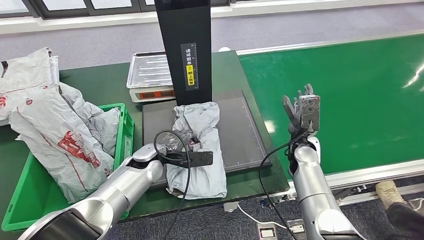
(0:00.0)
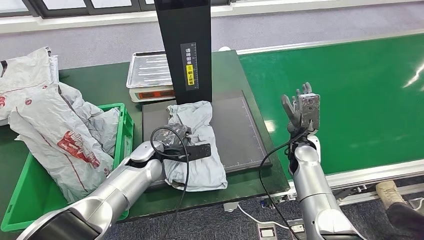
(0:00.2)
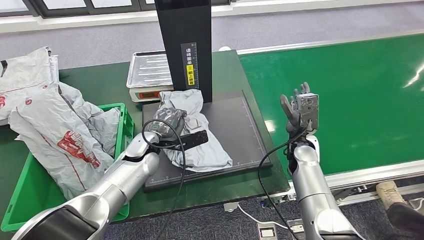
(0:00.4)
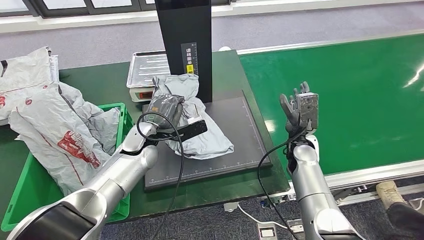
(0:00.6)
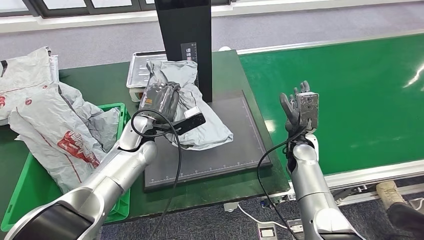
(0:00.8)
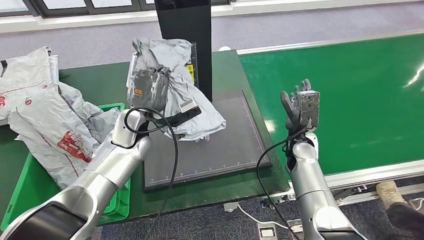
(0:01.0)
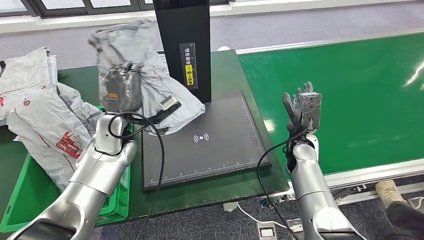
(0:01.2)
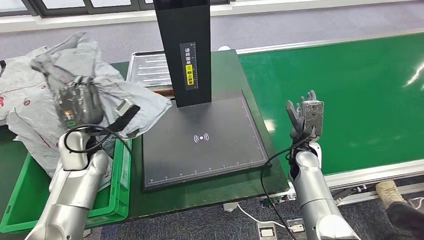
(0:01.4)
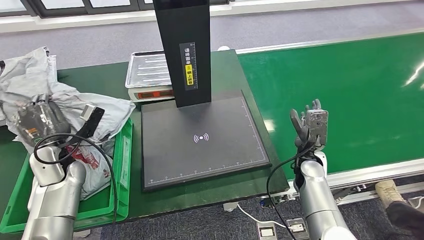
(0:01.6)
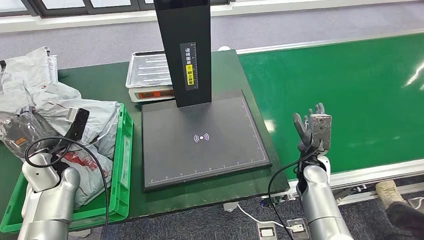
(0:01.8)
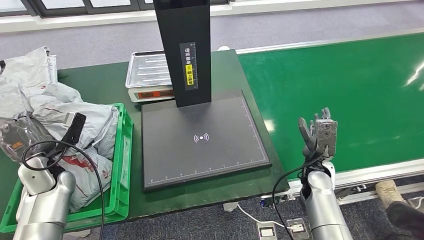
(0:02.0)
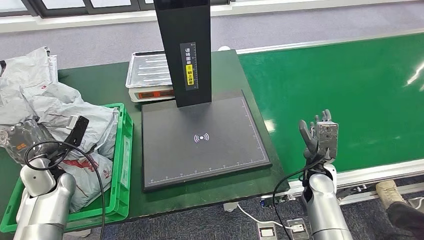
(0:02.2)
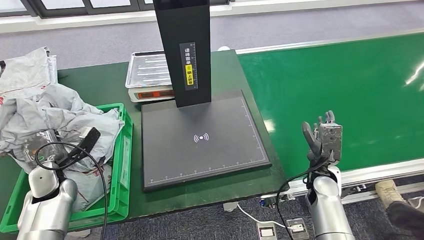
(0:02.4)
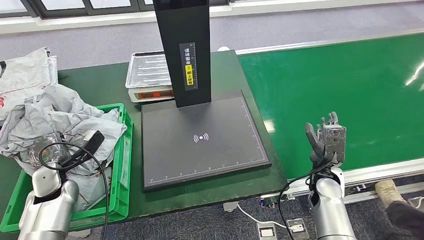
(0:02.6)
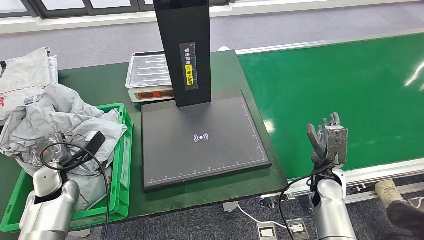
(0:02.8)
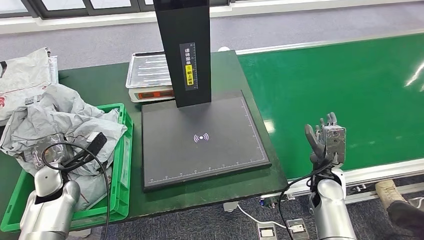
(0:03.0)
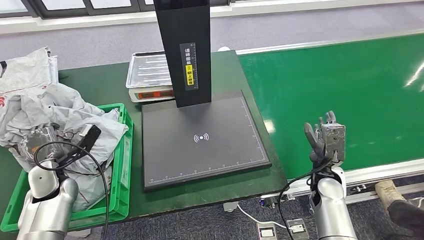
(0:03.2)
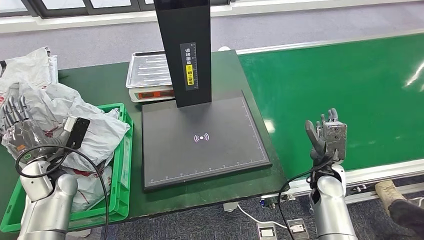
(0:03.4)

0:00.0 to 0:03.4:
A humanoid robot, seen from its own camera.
Step, 0:00.0 to 0:01.2: Pick up the parcel from the inbound machine.
Step, 0:01.6 to 0:03.4: Place the parcel into the delivery box.
0:01.6 to 0:03.4: The right hand moves about 5 cm.

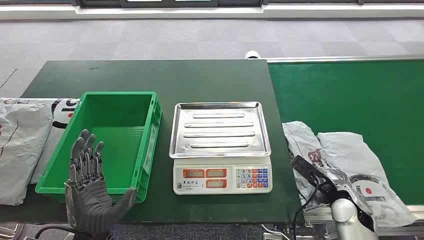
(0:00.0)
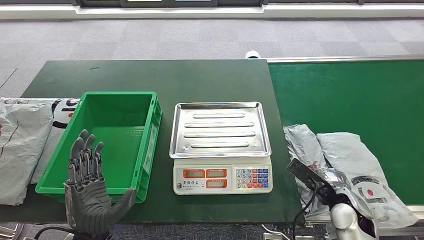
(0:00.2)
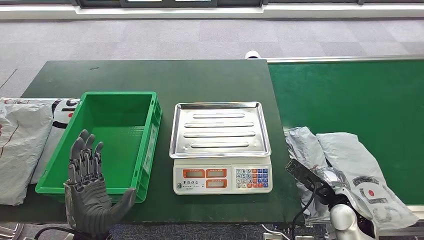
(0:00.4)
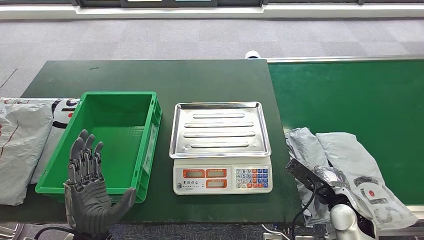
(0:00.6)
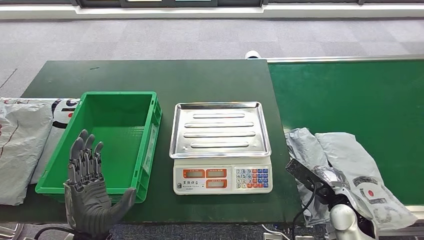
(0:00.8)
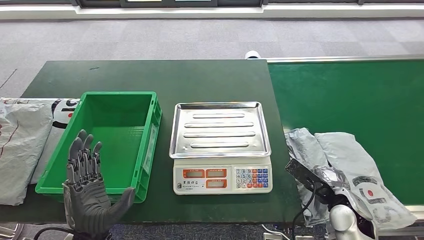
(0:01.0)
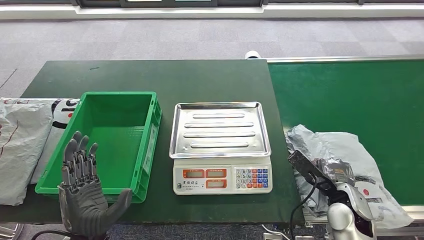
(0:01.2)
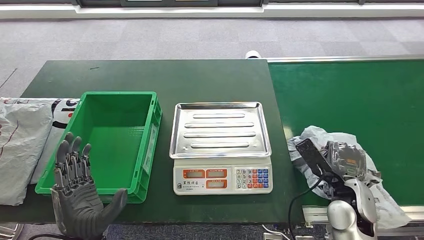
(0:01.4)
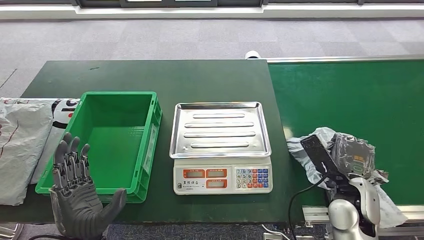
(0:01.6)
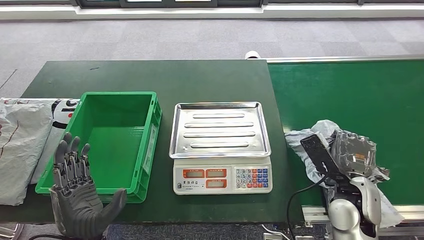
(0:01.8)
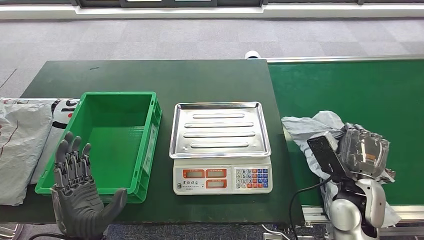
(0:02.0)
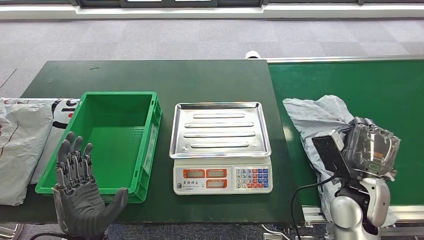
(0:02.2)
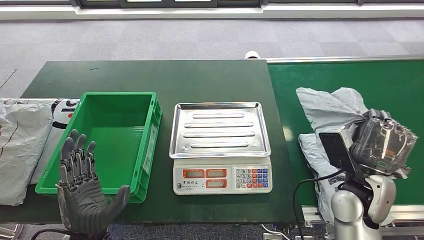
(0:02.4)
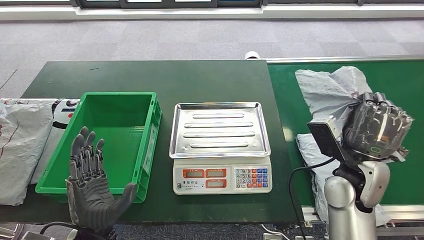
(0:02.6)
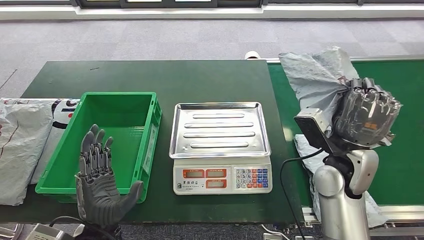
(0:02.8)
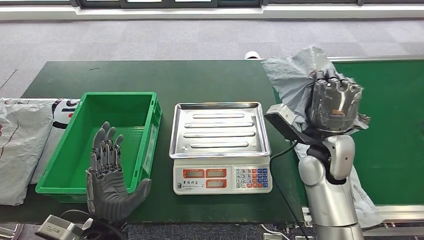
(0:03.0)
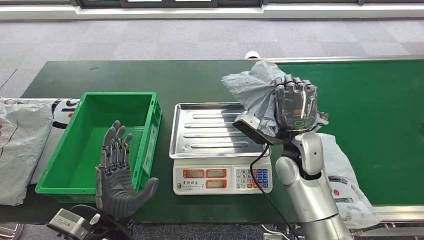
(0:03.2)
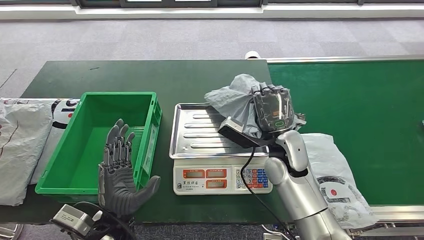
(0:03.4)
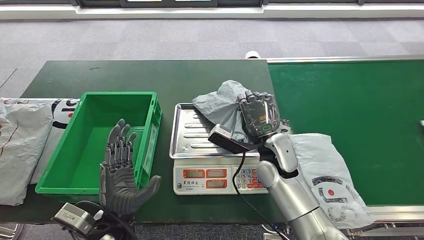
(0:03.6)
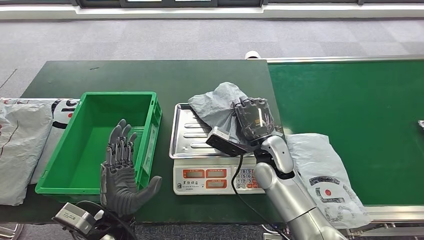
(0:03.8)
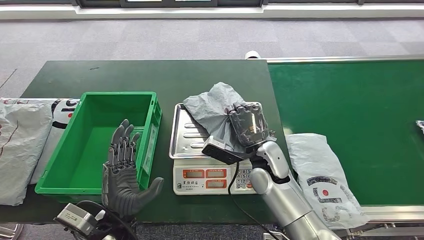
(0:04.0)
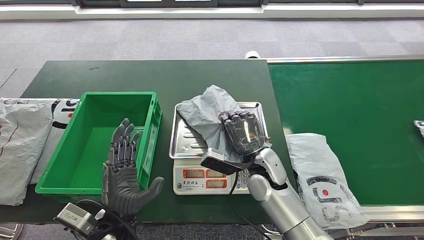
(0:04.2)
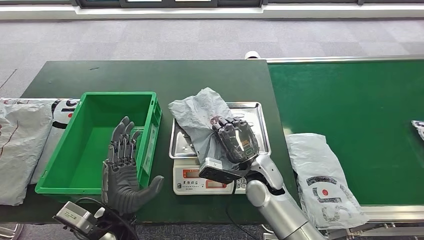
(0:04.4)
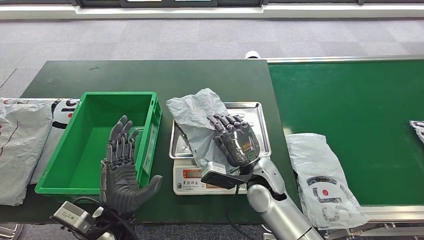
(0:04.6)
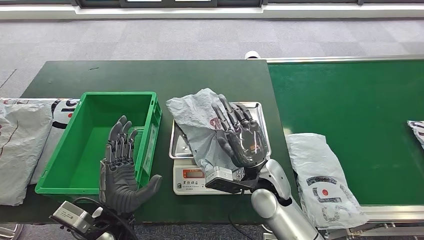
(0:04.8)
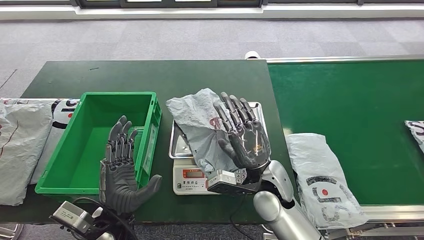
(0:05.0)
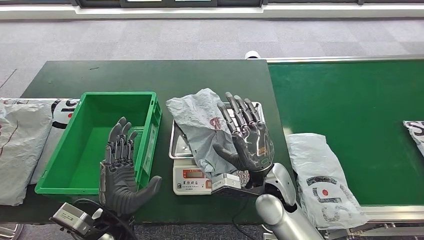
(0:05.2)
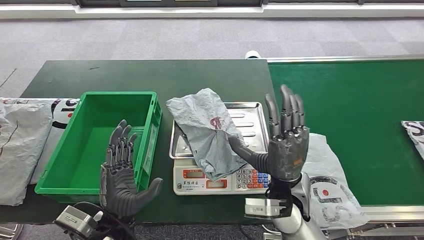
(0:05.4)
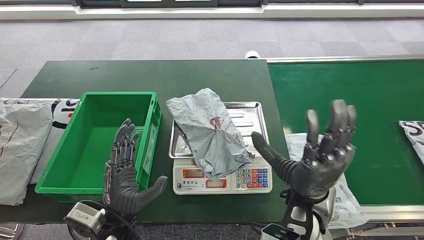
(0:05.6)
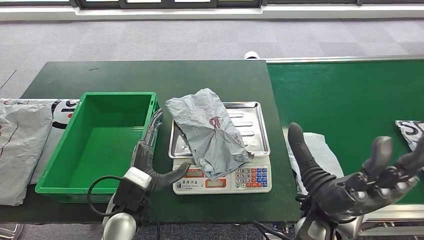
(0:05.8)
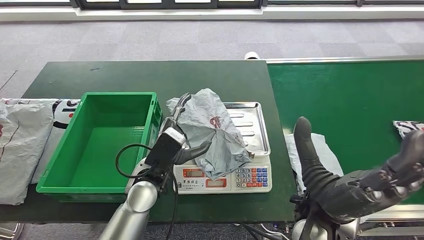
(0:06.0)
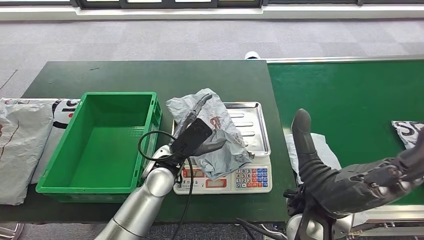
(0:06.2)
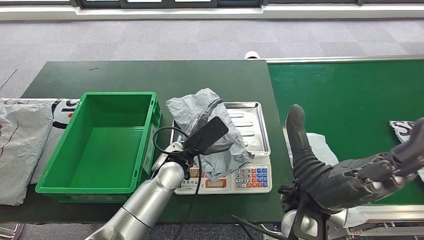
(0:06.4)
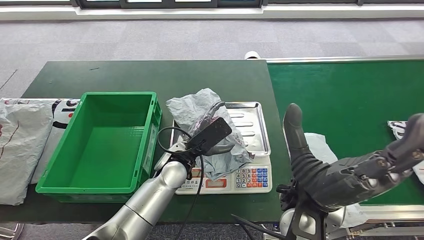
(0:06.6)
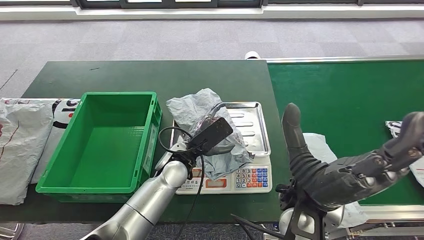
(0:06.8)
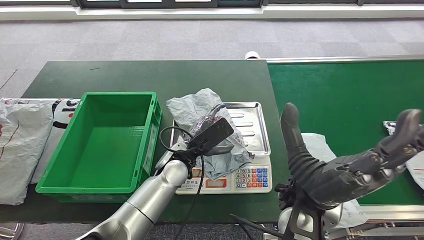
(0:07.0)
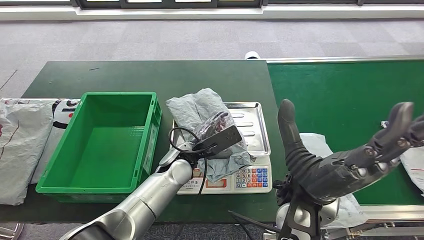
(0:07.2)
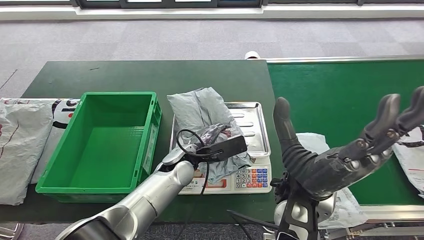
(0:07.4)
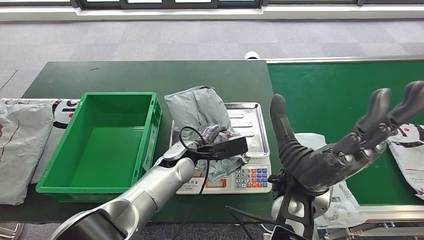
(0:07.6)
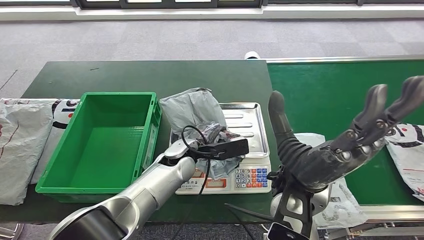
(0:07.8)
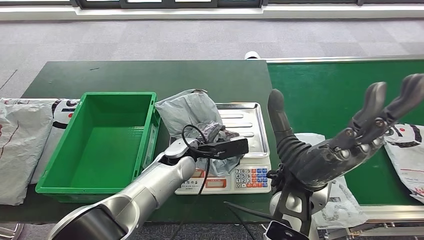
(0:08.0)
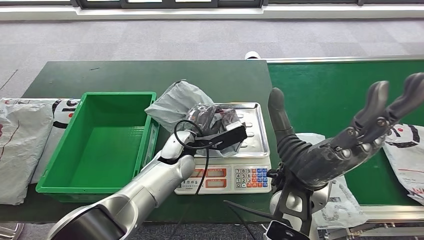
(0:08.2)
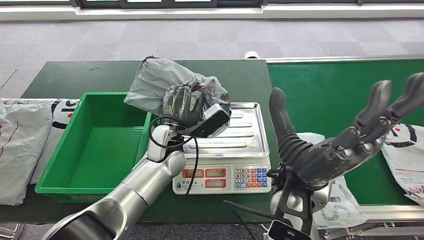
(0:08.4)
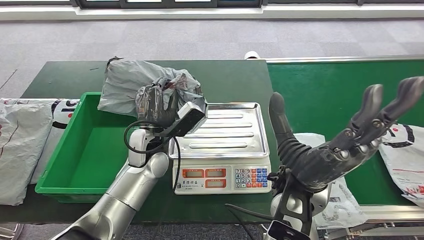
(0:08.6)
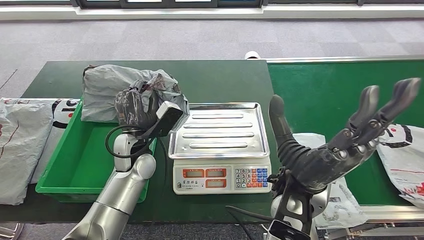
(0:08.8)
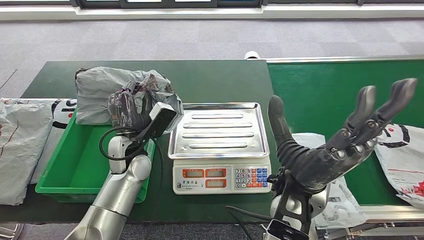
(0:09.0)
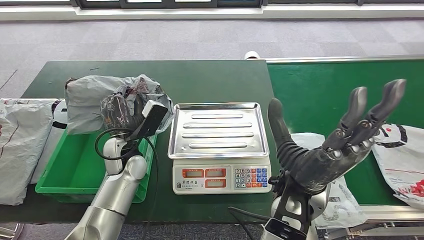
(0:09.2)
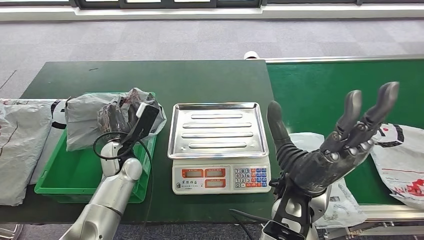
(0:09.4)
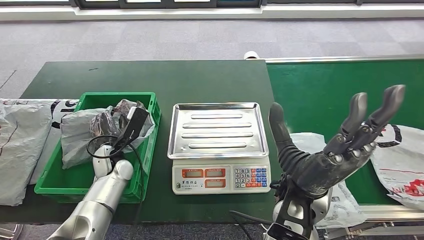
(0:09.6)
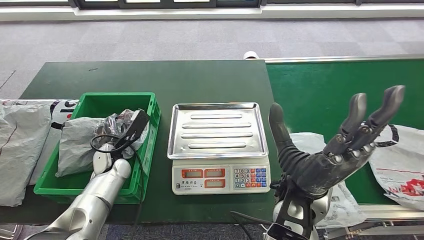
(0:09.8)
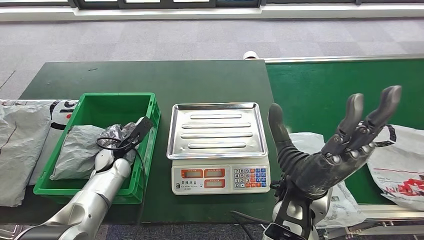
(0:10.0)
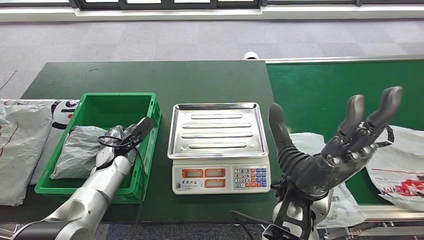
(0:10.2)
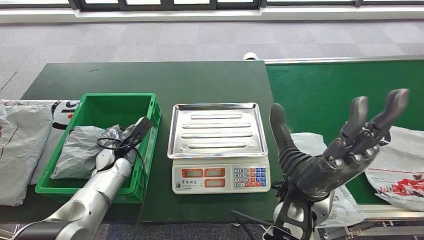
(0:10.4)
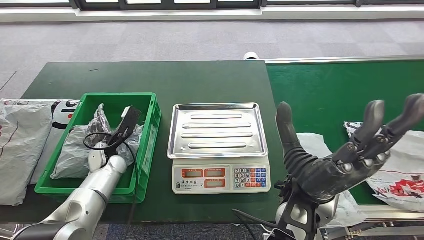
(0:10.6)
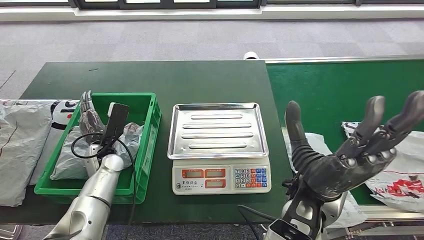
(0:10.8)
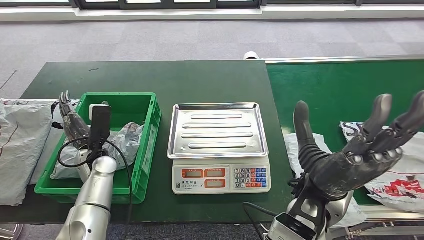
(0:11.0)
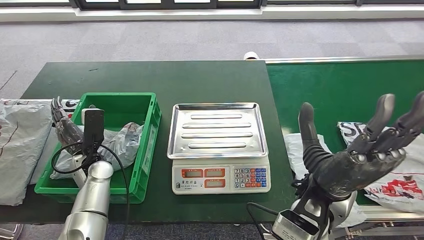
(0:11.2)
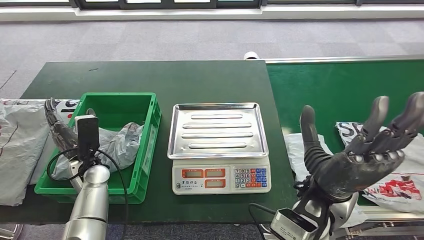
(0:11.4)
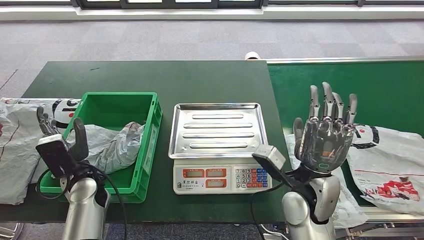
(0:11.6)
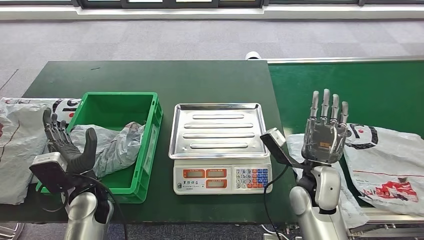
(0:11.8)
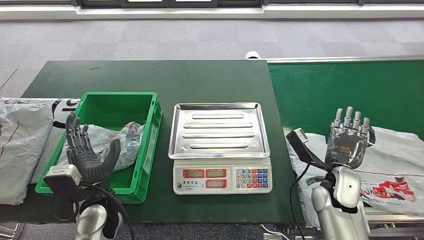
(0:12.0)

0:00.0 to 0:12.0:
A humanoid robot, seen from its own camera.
Step, 0:00.0 to 0:02.0: Take the parcel off the conveyor belt.
Step, 0:02.4 to 0:05.2: Place the parcel onto the inbound machine.
Step, 0:05.4 to 0:08.8: Pick up the parcel from the inbound machine.
0:01.6 to 0:03.0: The right hand heads forward, upward and to the left, covering roughly 15 cm.

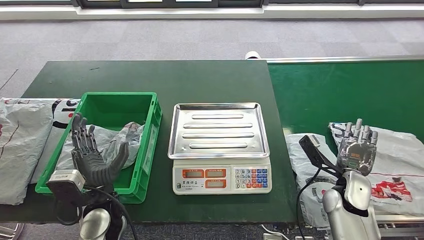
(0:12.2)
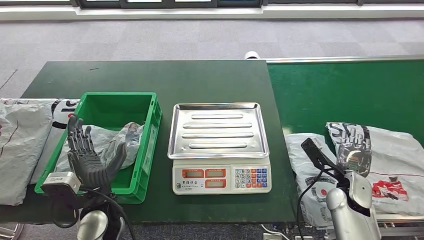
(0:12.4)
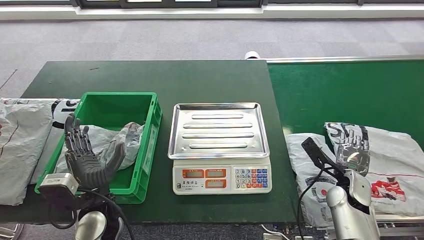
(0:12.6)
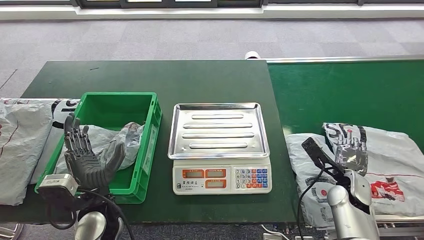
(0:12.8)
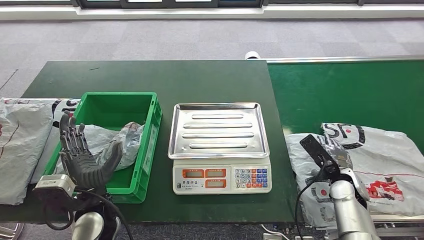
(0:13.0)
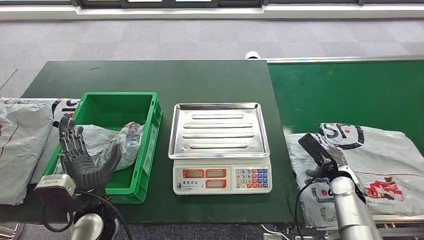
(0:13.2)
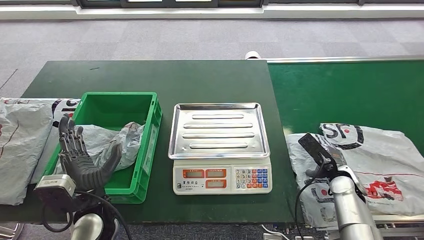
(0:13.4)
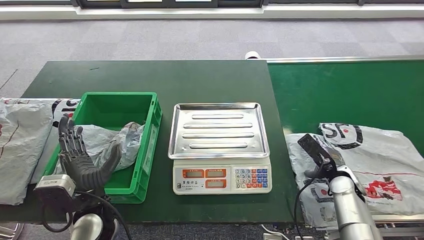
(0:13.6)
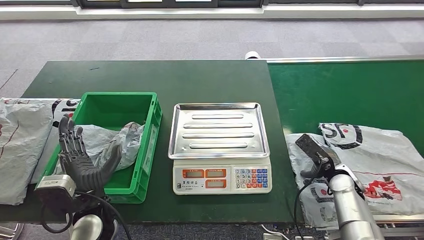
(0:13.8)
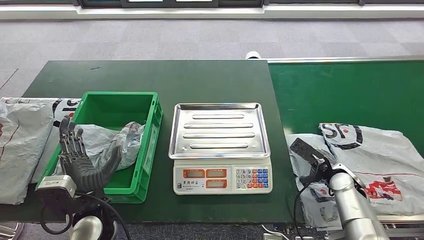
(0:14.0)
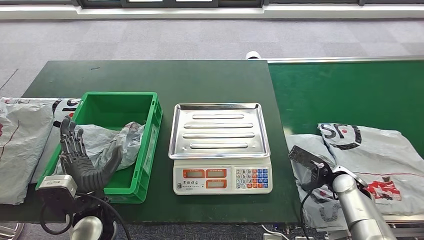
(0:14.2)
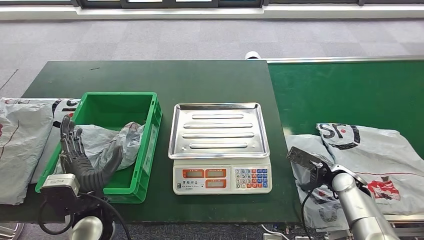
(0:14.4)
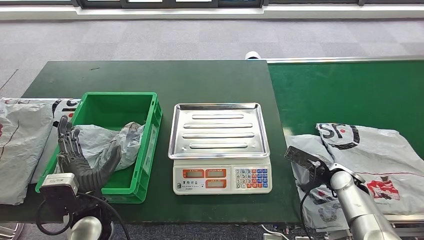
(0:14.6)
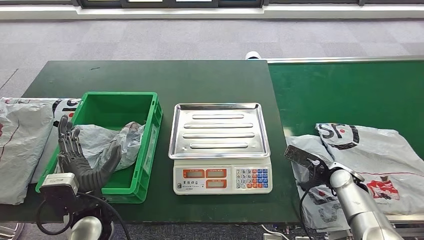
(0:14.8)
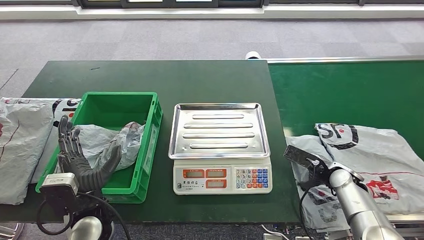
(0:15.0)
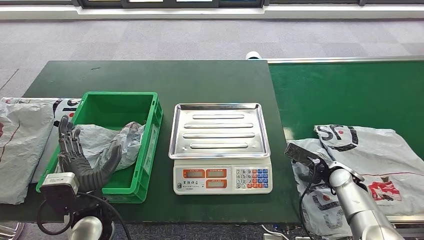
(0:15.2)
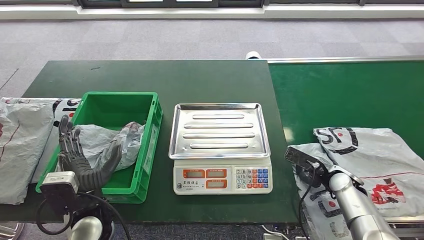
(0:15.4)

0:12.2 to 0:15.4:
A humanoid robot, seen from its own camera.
0:12.2 to 0:13.8: The right hand shifts by some 5 cm.
